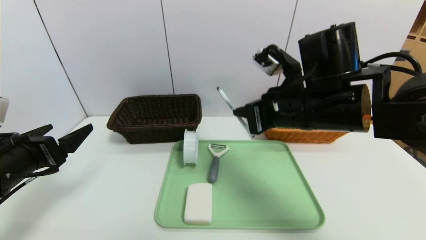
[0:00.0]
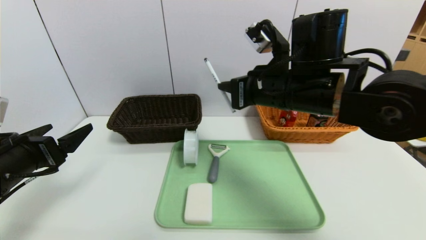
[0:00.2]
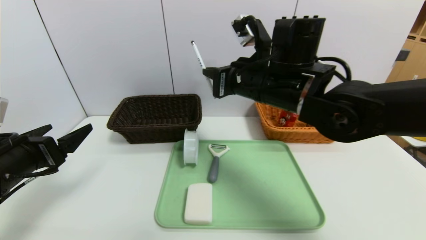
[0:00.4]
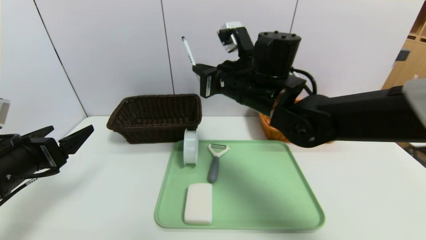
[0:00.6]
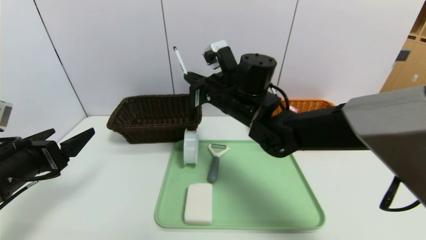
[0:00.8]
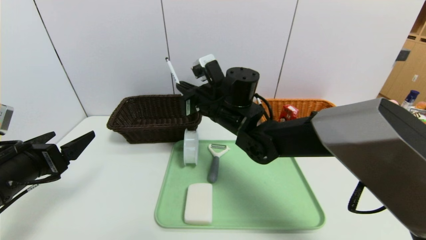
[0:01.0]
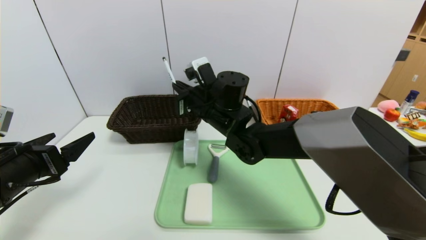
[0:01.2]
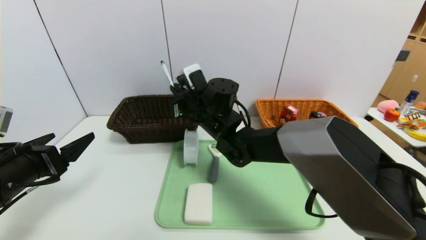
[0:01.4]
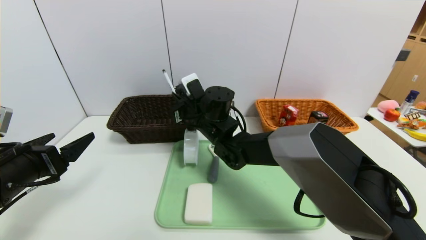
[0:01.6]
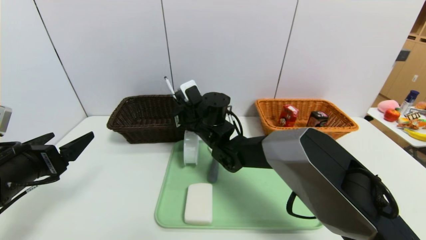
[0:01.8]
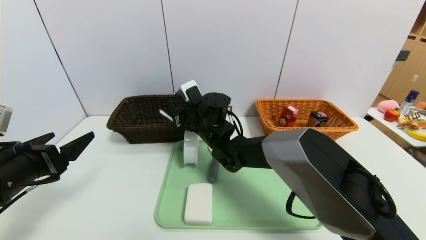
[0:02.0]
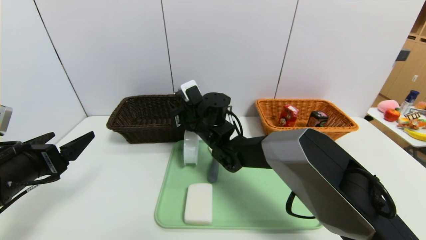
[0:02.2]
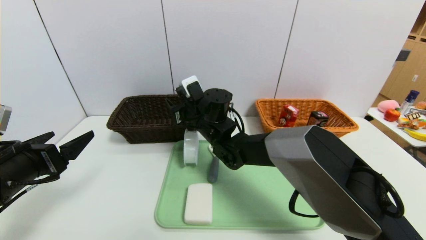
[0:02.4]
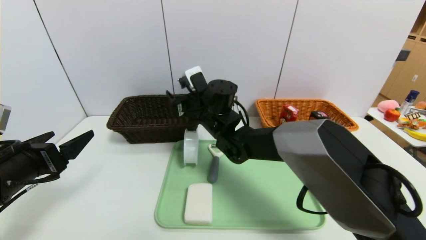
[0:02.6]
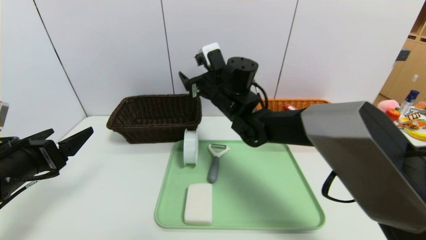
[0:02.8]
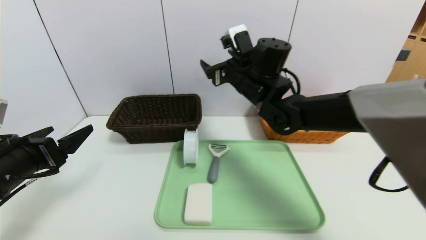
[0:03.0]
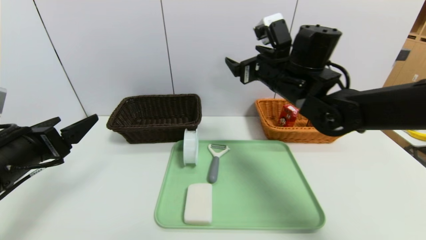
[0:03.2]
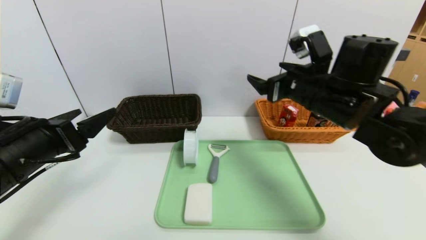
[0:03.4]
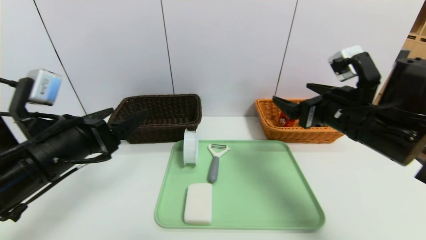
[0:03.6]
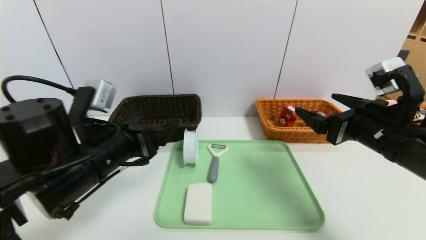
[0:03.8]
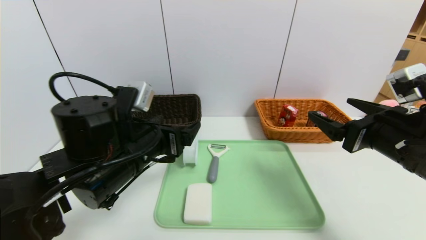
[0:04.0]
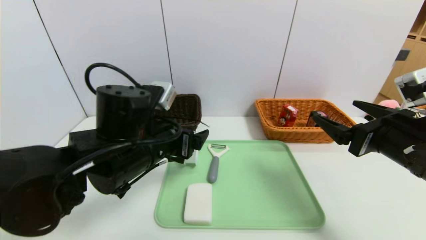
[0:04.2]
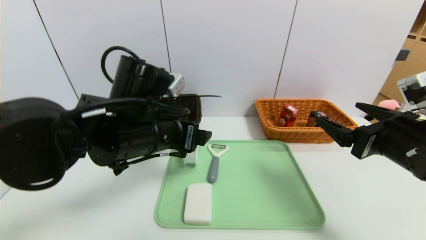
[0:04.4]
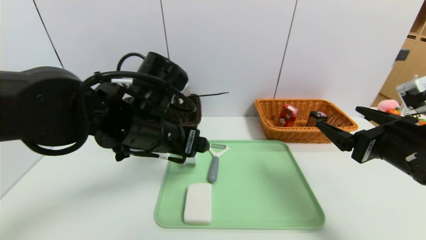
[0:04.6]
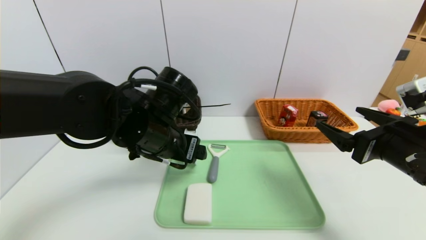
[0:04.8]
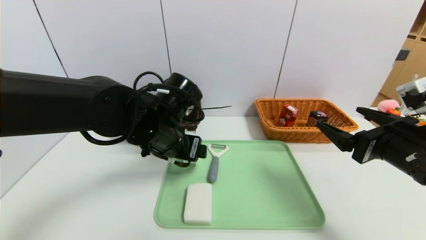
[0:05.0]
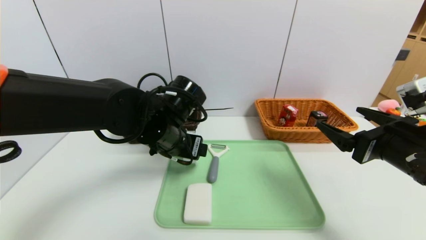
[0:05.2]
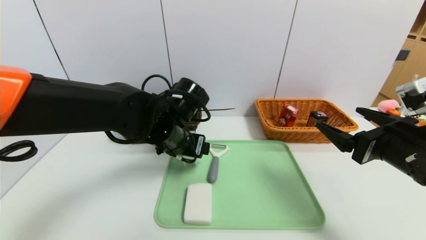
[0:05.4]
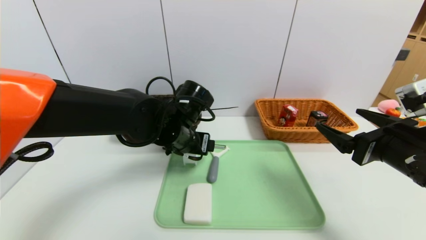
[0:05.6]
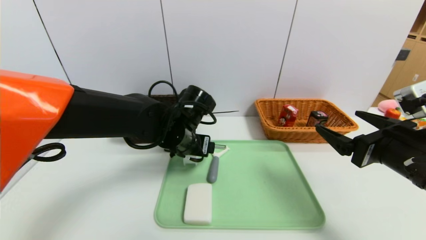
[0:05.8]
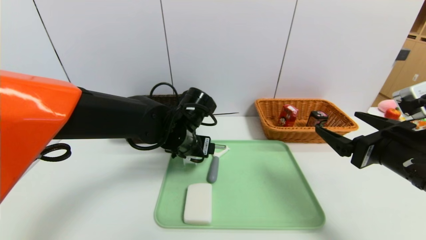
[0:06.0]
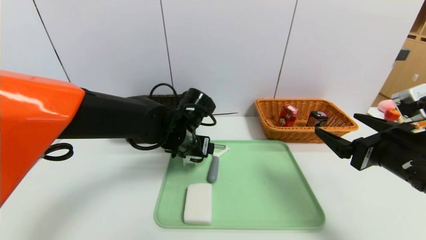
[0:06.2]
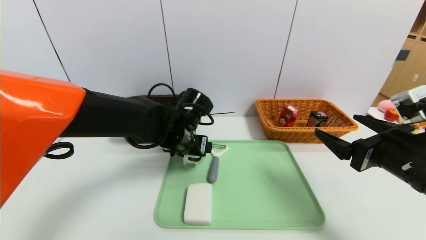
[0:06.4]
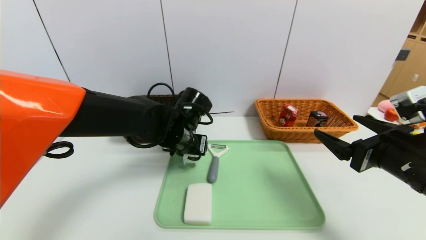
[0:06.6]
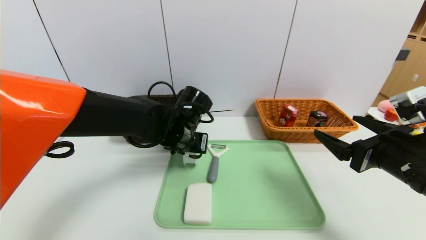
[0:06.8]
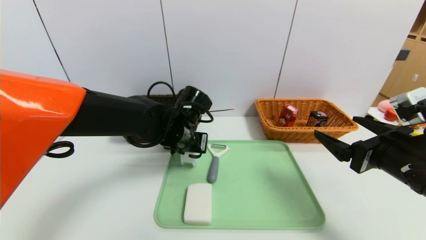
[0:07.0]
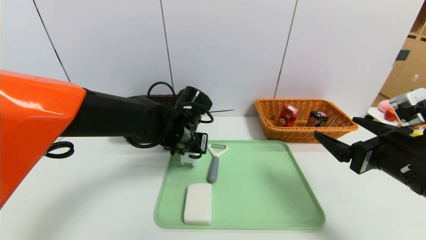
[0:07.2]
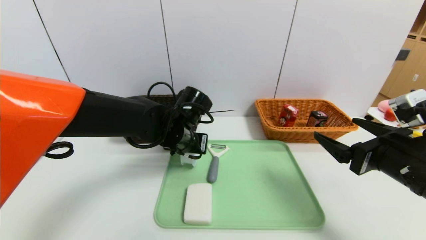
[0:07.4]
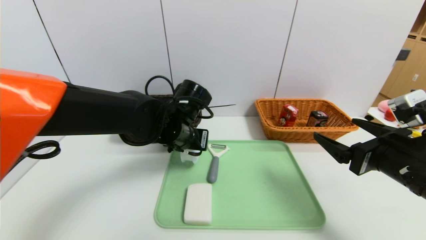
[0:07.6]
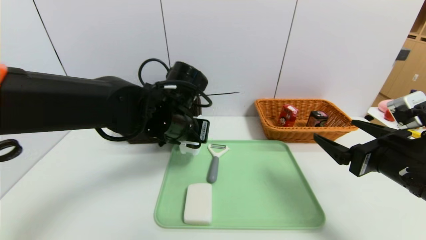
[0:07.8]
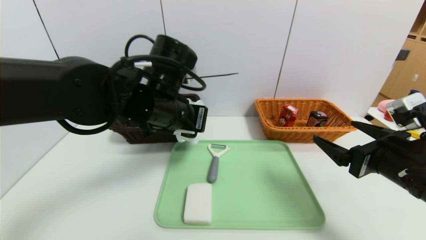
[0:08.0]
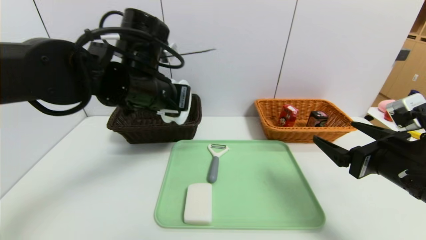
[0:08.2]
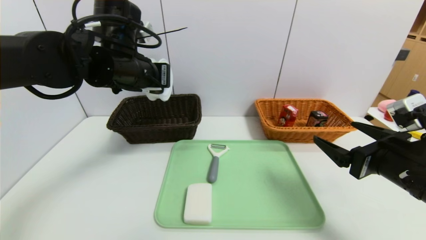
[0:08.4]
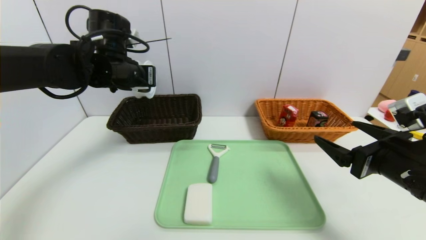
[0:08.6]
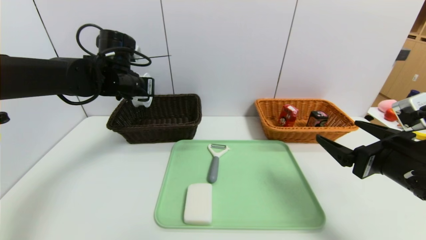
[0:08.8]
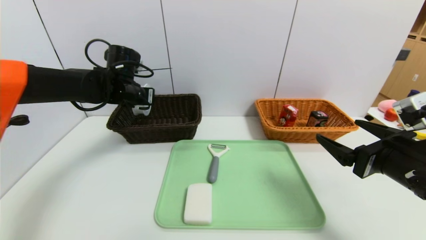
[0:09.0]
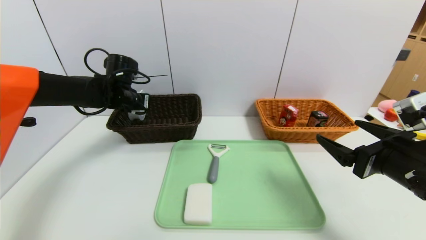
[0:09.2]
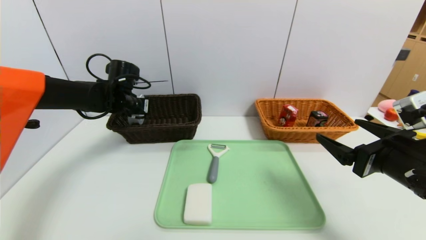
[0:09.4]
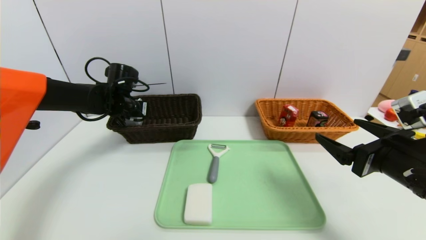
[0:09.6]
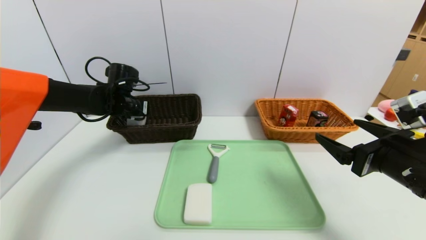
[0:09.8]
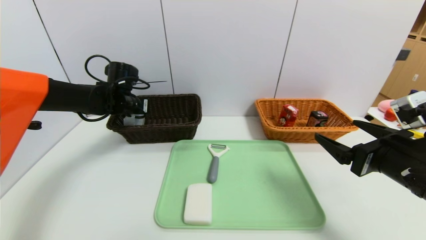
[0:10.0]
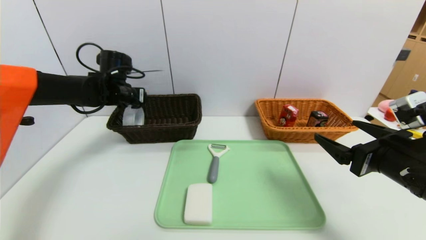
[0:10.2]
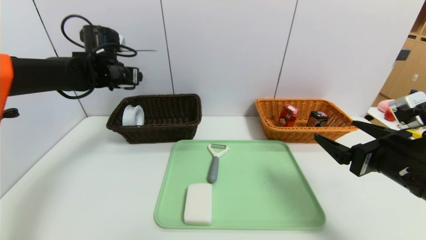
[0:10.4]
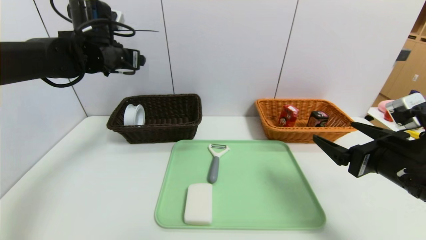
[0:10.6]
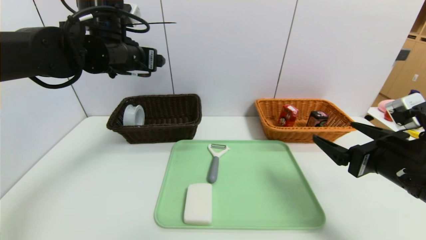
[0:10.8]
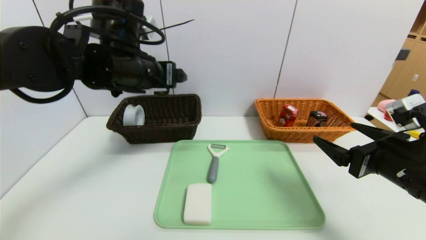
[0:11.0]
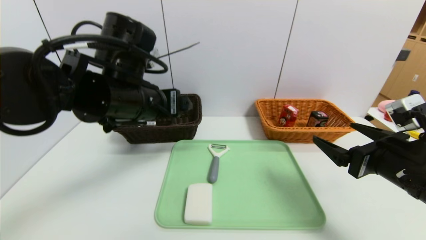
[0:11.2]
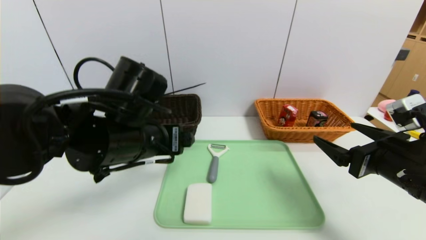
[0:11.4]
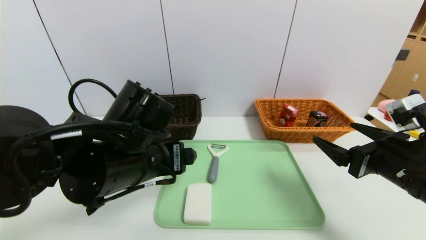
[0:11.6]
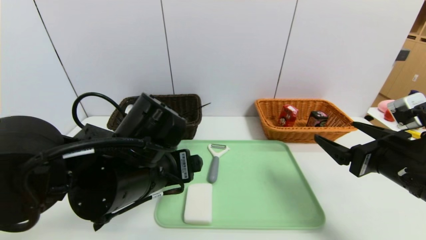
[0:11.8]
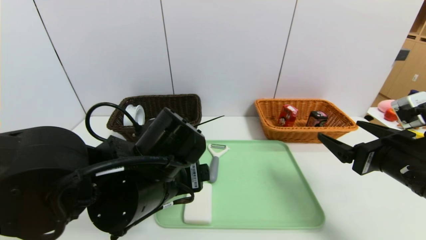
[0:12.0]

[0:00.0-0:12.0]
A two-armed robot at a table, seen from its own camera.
Task of the whole recording: place the food in the right basket with the right gripper, and place the non food items in the left basket with the left gripper.
Step, 0:00.0 to 0:02.2: Grasp the blue marker and put it in the right basket.
Step, 0:02.4 to 0:09.8: Grasp the tape and put it in the left basket.
0:00.0 to 0:01.6: The right gripper is displaced to the left, forward and downward by approximately 25 cm.
0:01.6 to 0:03.0: The right gripper moves to the right and upward, roughly 15 cm, and opens up.
0:03.0 to 0:04.4: The left gripper moves to the right, some 20 cm. Meanwhile the right gripper travels backward and to the right by roughly 25 cm.
0:04.4 to 0:06.0: The left gripper goes about 10 cm forward and downward.
0:06.0 to 0:07.6: The left gripper closes its fingers.
0:07.6 to 0:09.0: The left gripper heads to the left and forward, covering some 20 cm.
0:09.0 to 0:10.4: The left gripper shifts roughly 5 cm upward, and opens up.
0:10.4 to 0:12.0: The left gripper shifts about 30 cm backward and to the right.

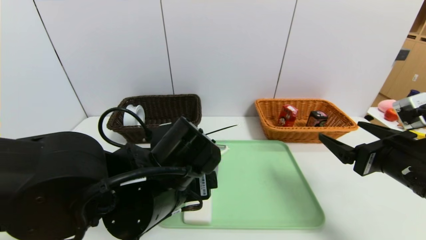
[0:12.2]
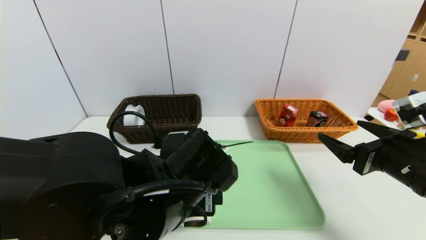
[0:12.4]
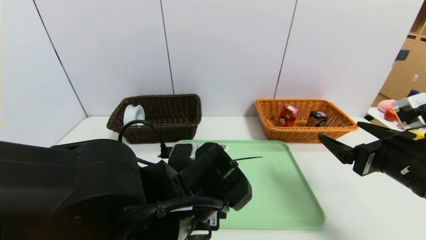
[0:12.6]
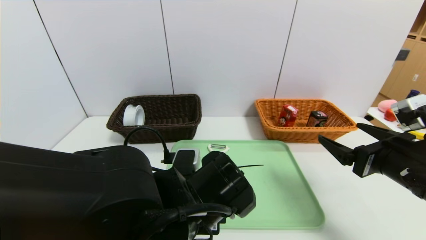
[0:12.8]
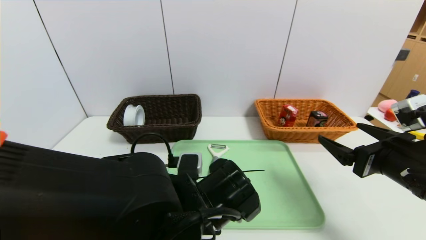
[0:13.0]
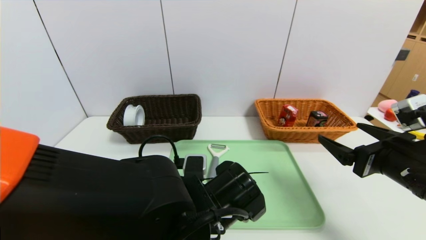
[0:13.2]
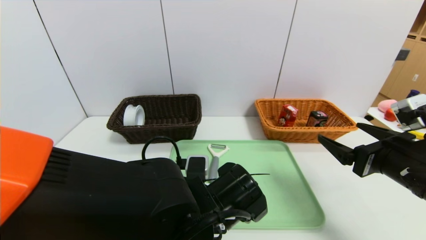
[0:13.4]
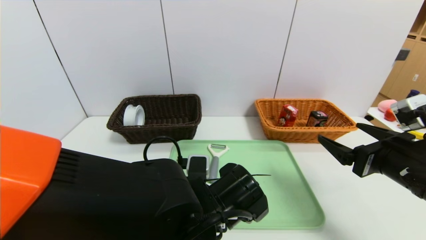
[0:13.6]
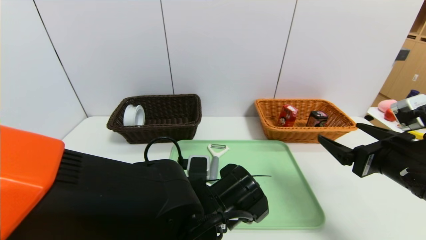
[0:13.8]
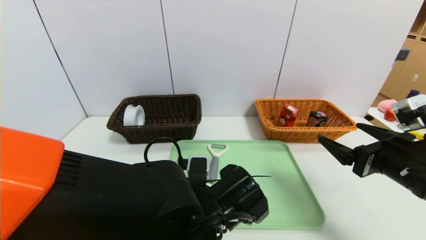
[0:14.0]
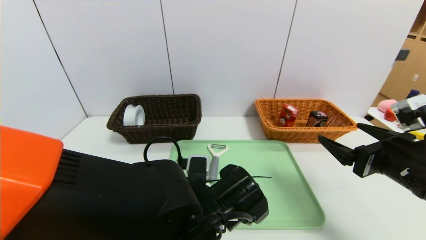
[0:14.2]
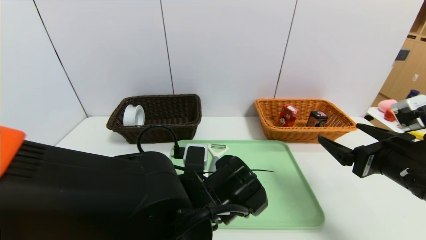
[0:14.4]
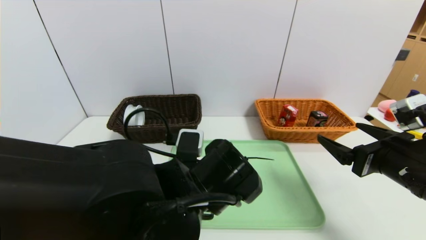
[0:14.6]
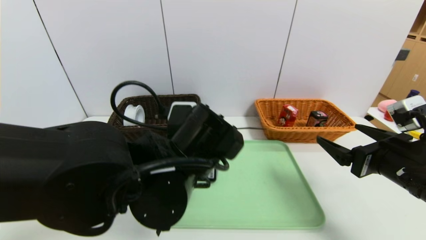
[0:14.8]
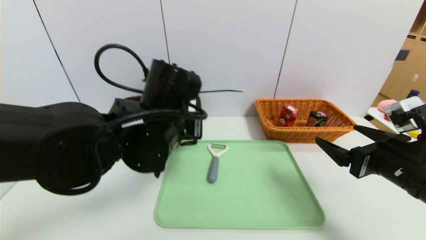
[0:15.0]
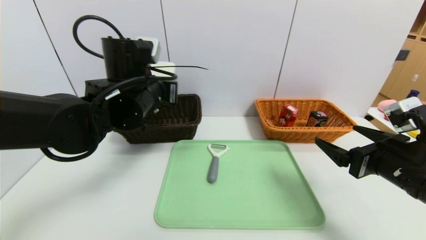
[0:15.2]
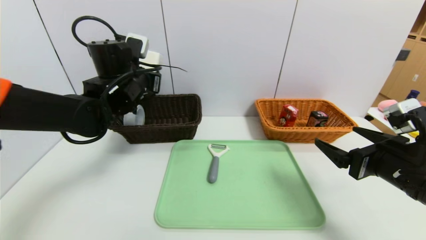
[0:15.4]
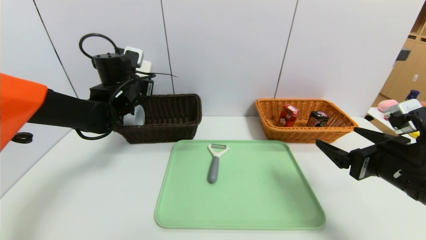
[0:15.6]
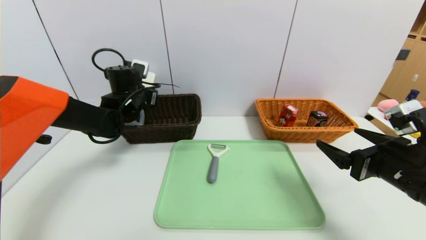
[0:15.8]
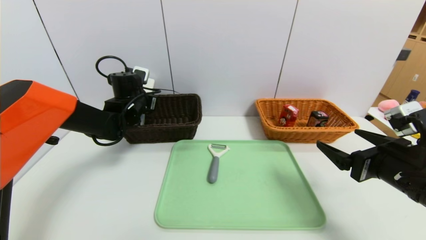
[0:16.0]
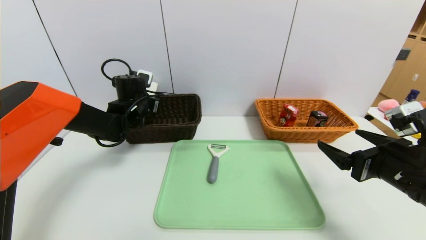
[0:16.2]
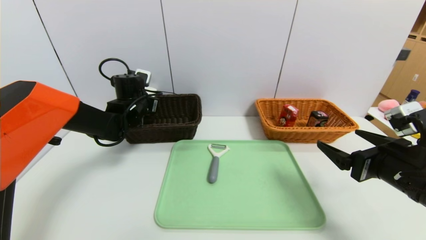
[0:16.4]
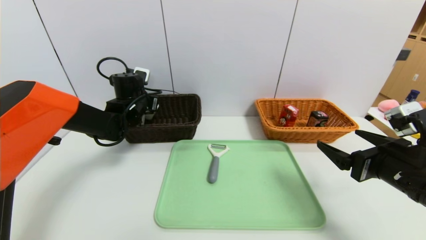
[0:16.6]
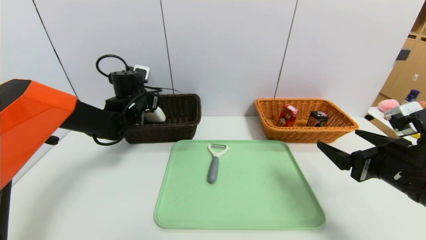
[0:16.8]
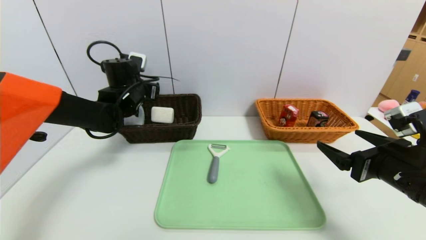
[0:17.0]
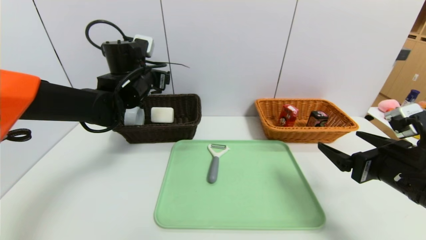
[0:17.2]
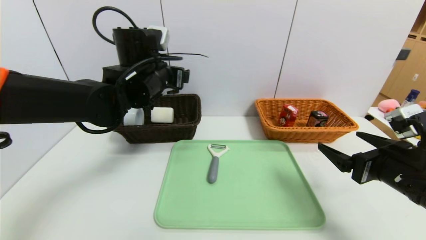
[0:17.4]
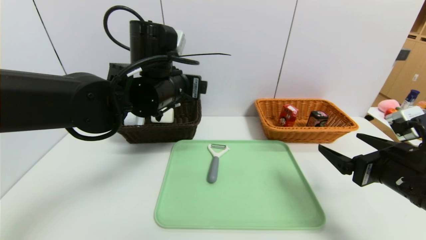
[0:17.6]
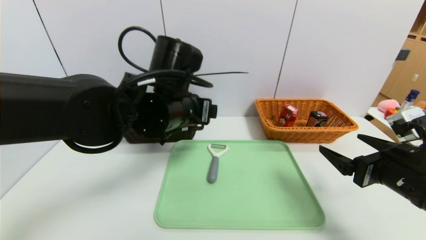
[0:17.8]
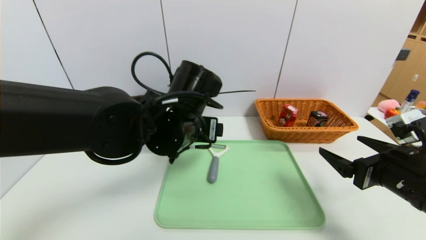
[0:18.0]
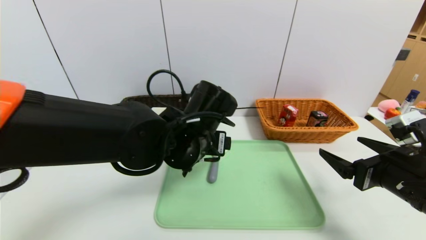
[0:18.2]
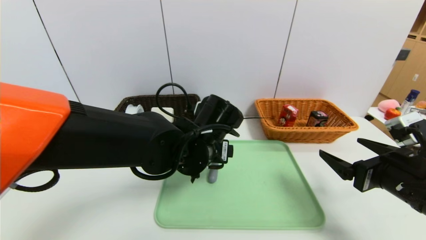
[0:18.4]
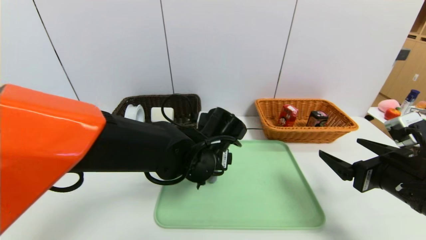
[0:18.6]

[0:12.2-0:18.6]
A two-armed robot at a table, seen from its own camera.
Task of the whole recording: place the food in the right basket with the right gripper, and place the non food items in the left basket with the left gripper.
Step, 0:12.2 to 0:16.8: Grasp the soap and put it in the left basket.
0:12.2 to 0:13.8: The left gripper heads downward, covering approximately 5 cm, and closes up.
0:13.8 to 0:15.4: The left gripper goes roughly 30 cm forward, to the left and upward.
0:15.4 to 0:17.0: The left gripper opens its fingers.
0:17.0 to 0:18.6: The left gripper shifts approximately 25 cm to the right and backward.
